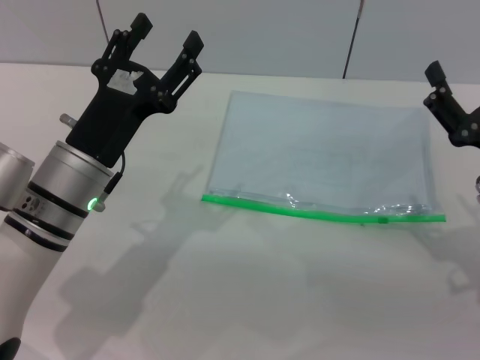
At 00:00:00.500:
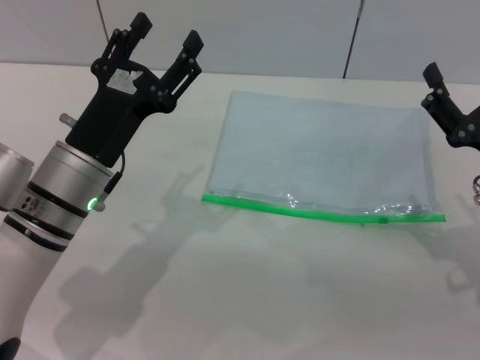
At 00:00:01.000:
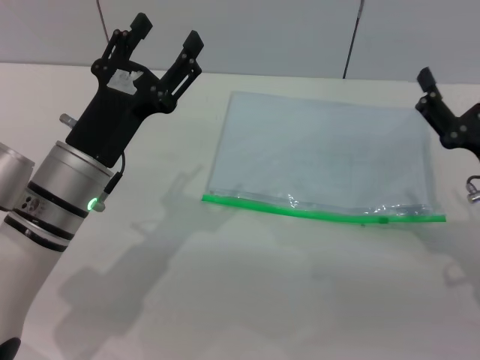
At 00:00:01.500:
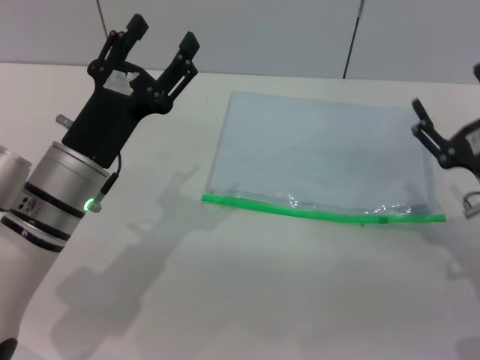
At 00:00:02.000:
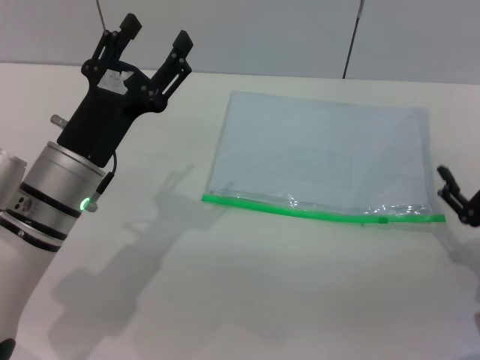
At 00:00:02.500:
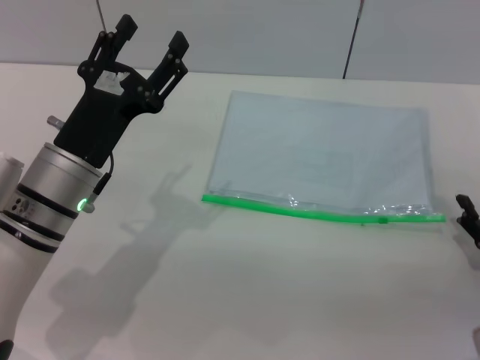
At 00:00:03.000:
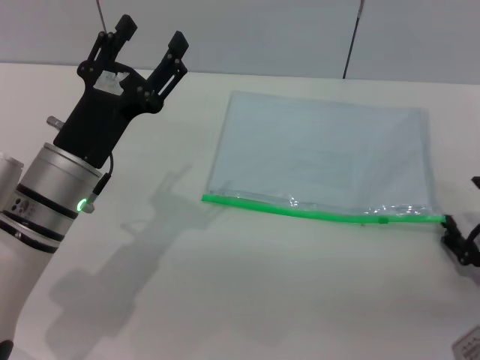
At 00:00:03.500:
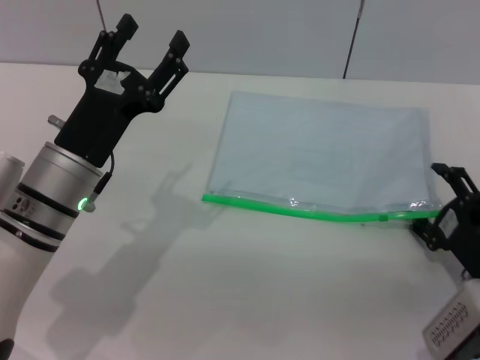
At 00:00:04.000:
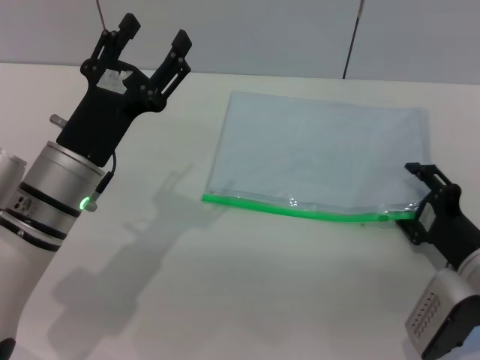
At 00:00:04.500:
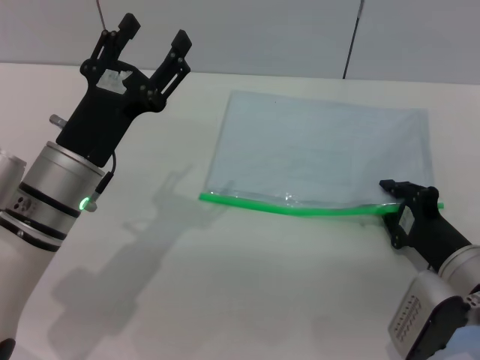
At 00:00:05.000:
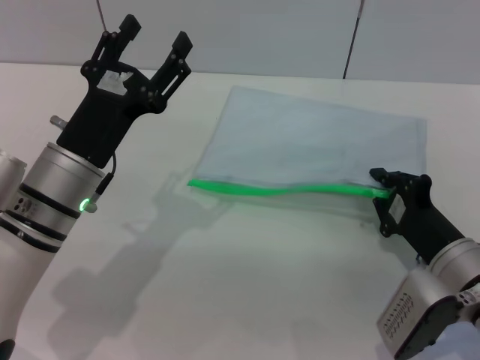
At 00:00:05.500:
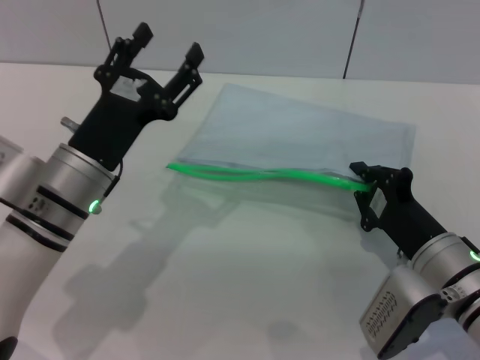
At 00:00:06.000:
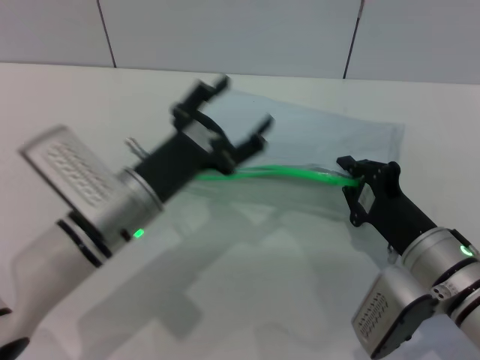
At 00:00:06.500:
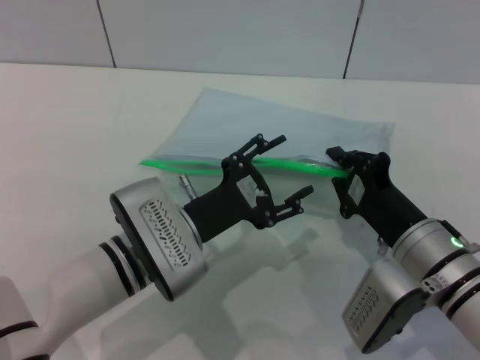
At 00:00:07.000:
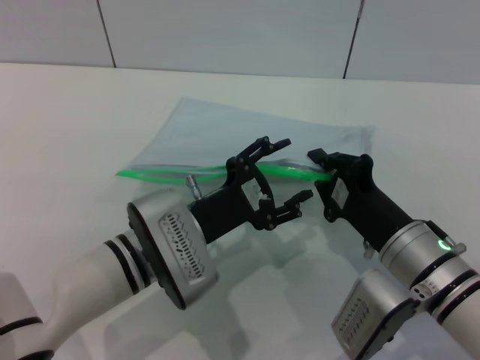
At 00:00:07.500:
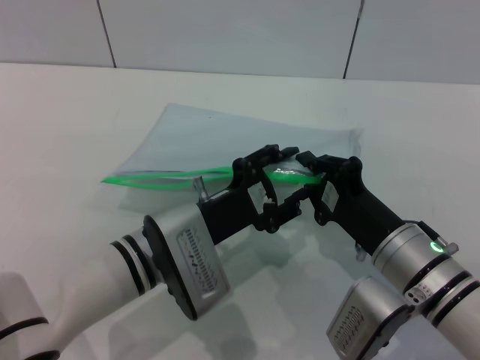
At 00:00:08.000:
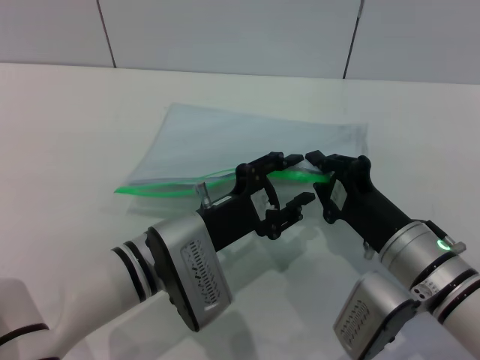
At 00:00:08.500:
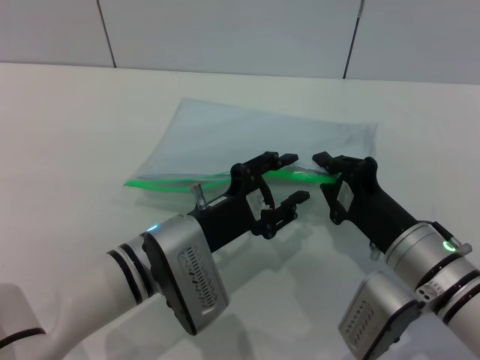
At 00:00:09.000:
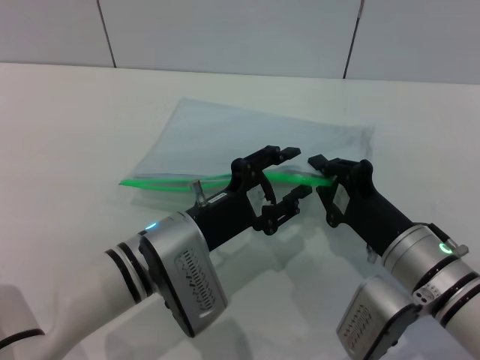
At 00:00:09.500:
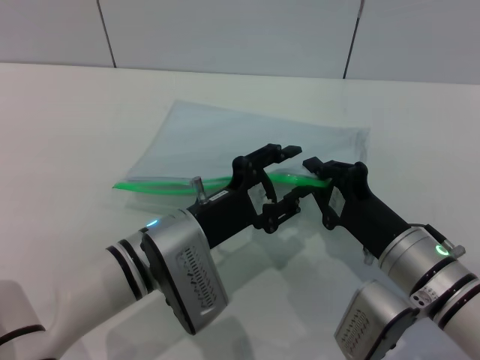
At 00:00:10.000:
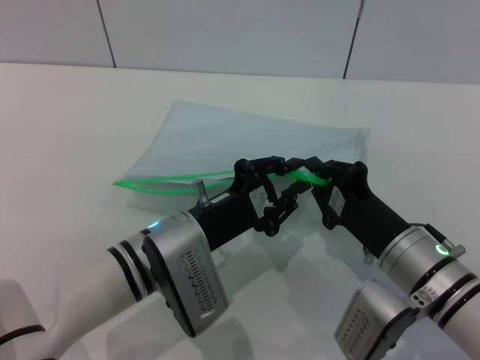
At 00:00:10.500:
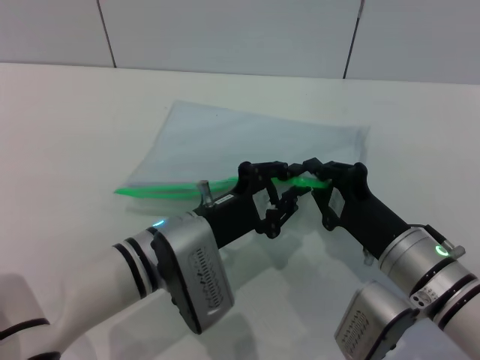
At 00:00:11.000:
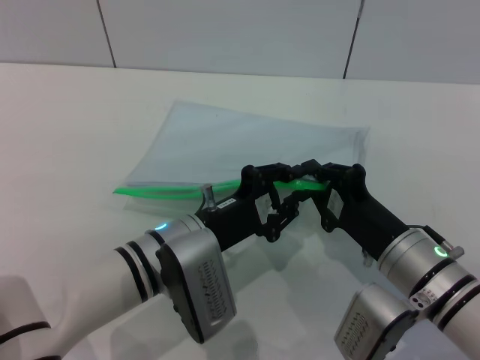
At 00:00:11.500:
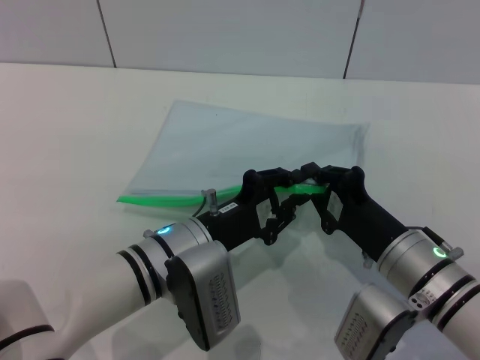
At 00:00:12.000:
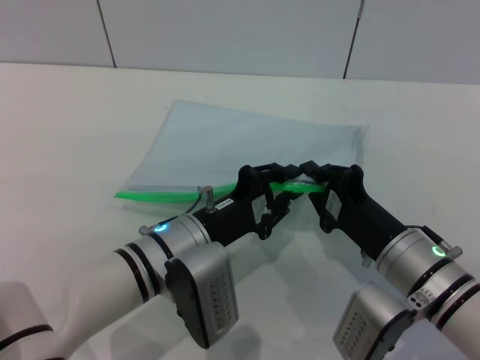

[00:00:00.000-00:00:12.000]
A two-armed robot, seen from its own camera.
Step, 00:00:00.000 to 00:00:05.000: Pick up the transparent plastic bag with the right gripper.
00:00:00.000 to 00:00:02.000: The right gripper goes roughly 5 cm downward.
00:00:02.000 to 00:00:04.000: The right gripper ends up roughly 5 cm from where it was.
00:00:04.000 to 00:00:06.000: The right gripper moves to the left, roughly 5 cm, and closes its fingers.
00:00:06.000 to 00:00:08.000: The left gripper moves roughly 5 cm.
00:00:08.000 to 00:00:10.000: Both grippers stay about where they are.
00:00:10.000 to 00:00:12.000: The grippers stay close to where they were, moving slightly.

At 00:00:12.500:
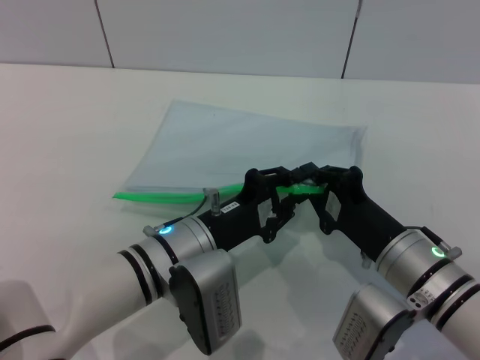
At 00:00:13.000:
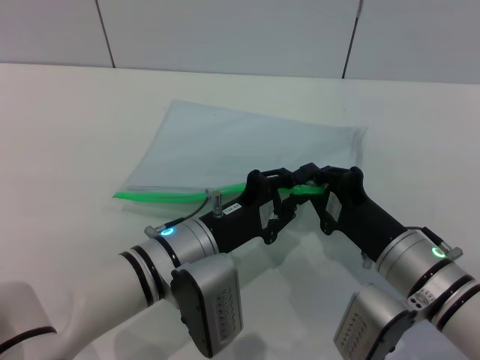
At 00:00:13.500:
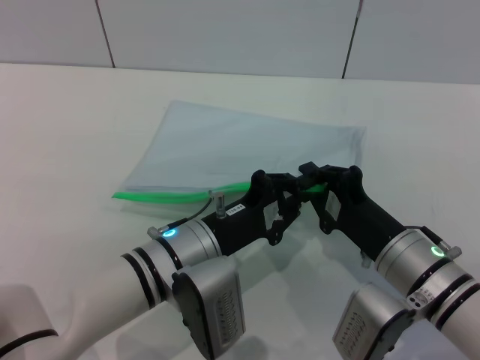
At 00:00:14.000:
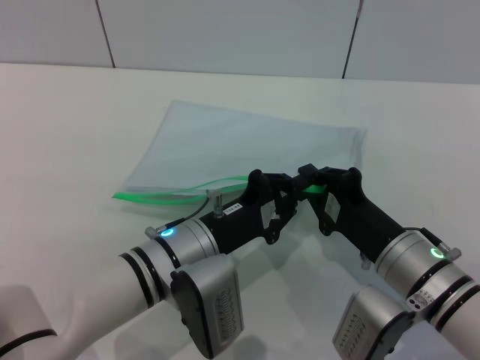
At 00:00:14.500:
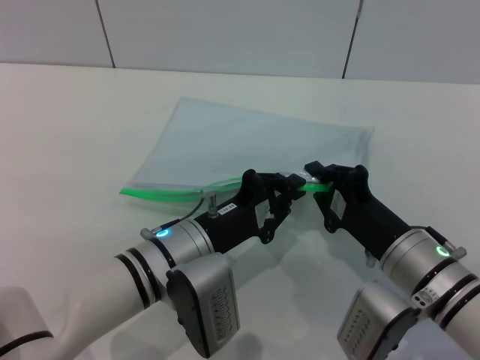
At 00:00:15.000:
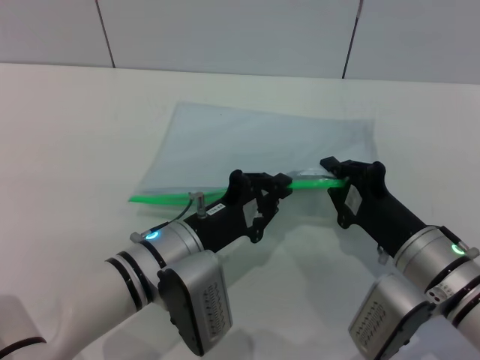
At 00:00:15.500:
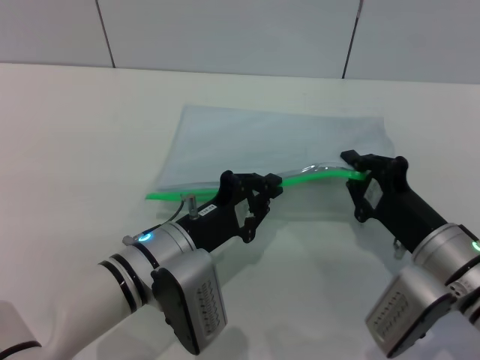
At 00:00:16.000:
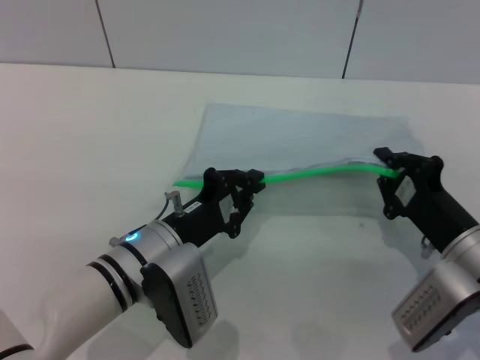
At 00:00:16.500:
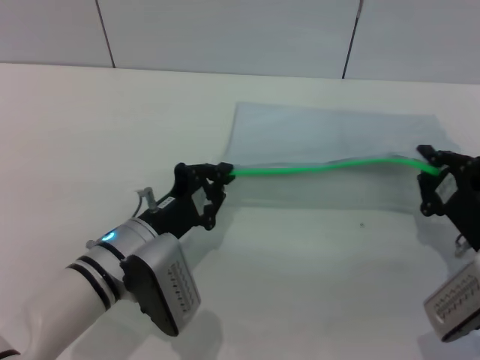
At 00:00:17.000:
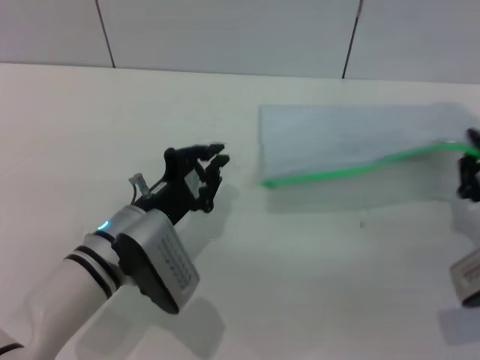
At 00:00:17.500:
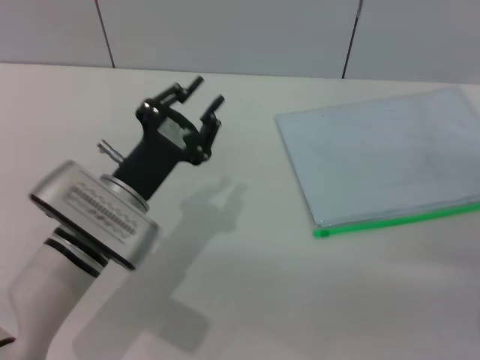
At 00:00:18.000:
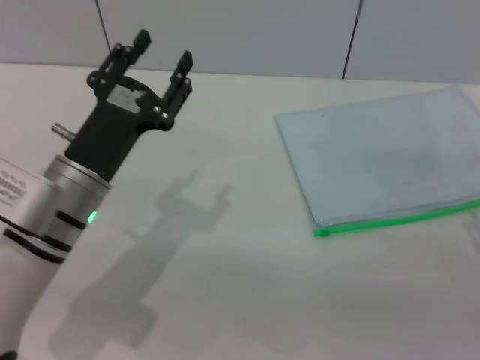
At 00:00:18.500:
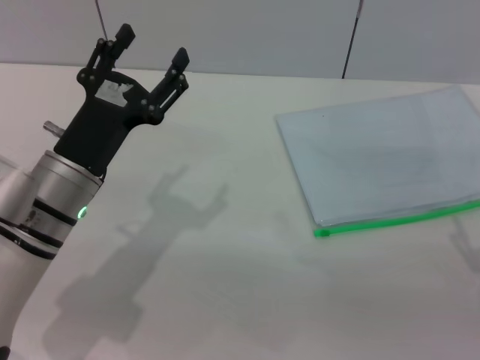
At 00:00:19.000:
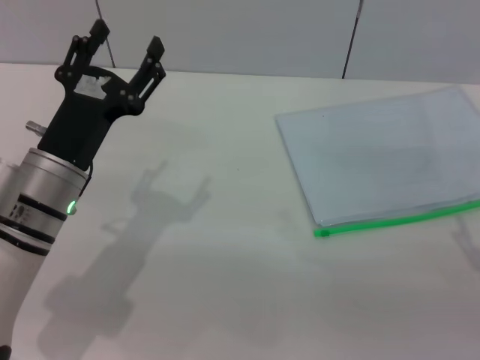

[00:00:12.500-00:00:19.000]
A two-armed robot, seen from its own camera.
Step, 00:00:12.500 to 00:00:16.500: Pulling up the zipper on the transparent plastic bag with the left gripper to close it.
Step, 00:00:17.000 to 00:00:17.500: Place the transparent plastic bag.
00:00:12.500 to 00:00:14.500: Both grippers stay put.
00:00:14.500 to 00:00:17.000: The right gripper moves to the right, some 10 cm.
00:00:17.000 to 00:00:19.000: The right gripper heads upward, covering some 5 cm, and opens, while the left gripper travels upward and to the left by about 10 cm, and opens up.
